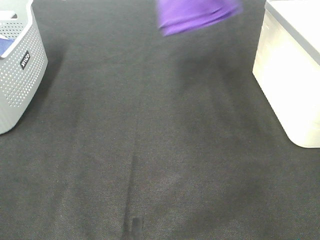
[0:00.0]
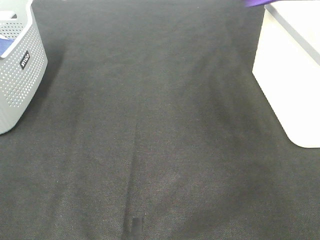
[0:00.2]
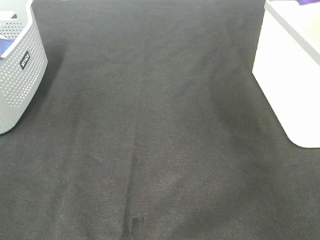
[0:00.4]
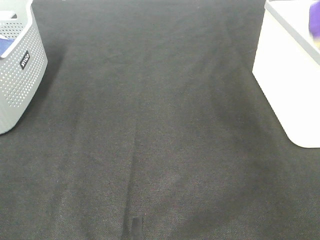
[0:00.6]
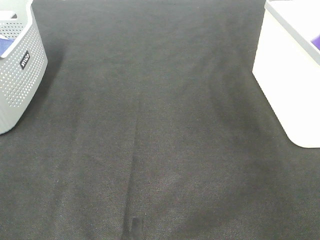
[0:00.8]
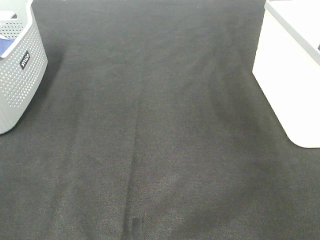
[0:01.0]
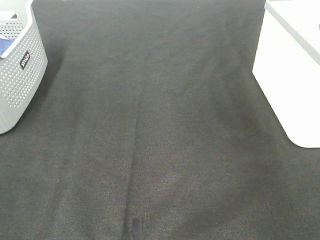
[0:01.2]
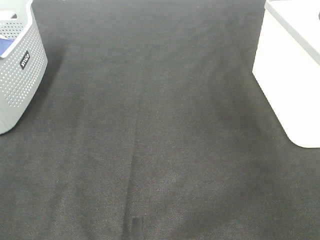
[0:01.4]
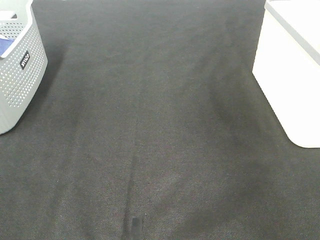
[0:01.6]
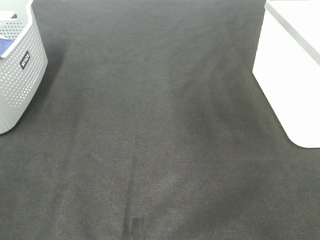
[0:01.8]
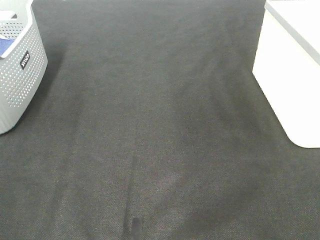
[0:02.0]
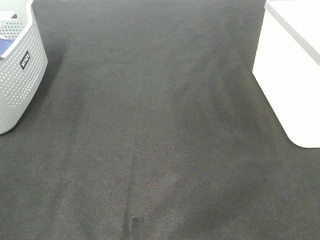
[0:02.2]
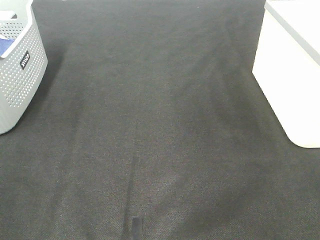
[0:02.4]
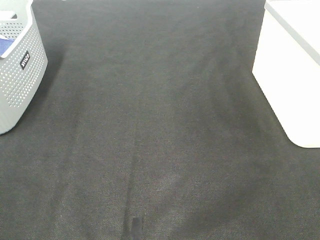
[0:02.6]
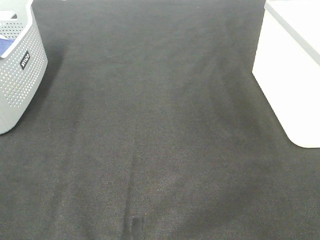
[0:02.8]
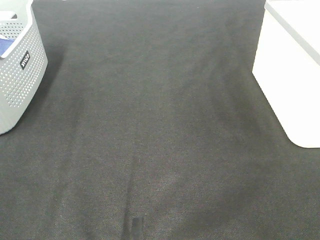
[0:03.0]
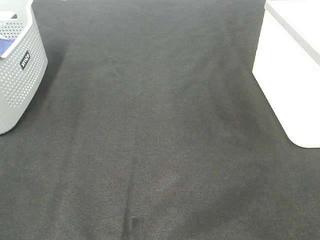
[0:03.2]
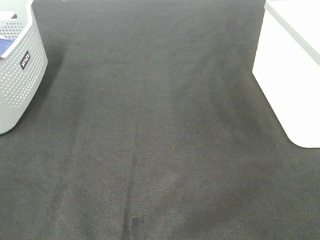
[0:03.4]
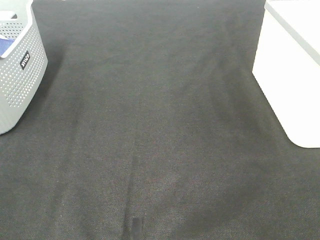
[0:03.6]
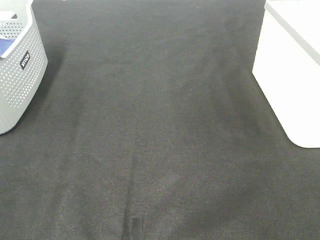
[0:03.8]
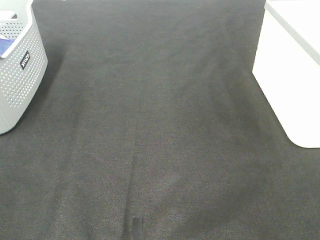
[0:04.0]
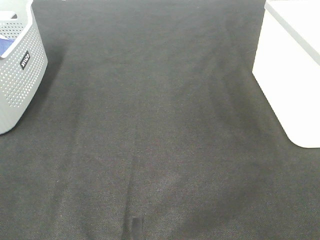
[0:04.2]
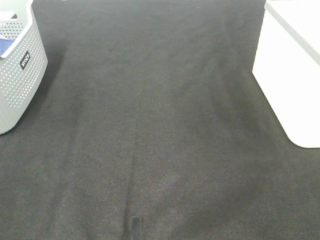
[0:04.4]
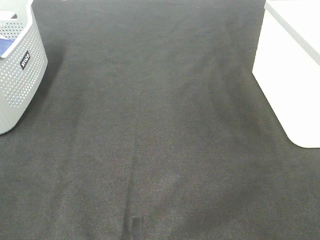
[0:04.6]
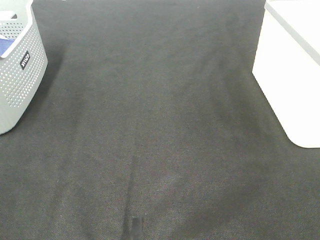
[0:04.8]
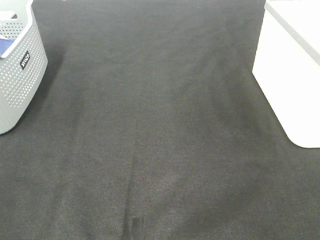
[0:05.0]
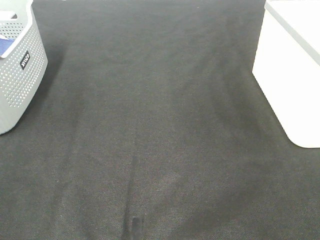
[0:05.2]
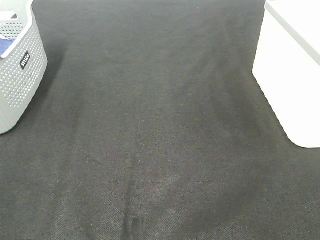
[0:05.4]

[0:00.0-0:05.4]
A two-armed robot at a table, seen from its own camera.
Step, 0:00.0 to 0:01.0: Right hand: place the purple towel in right basket.
0:00.0 to 0:01.4: The right gripper moves to the right, about 20 cm, and opens its fingers.
0:04.0 to 0:05.4: The two grippers keep their place.

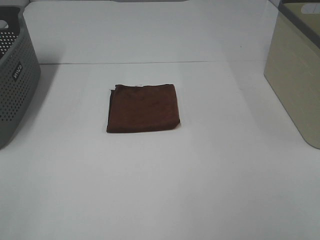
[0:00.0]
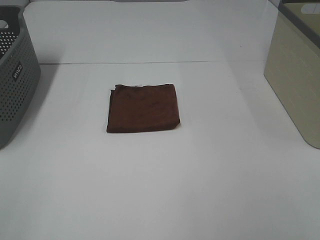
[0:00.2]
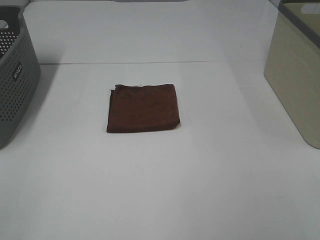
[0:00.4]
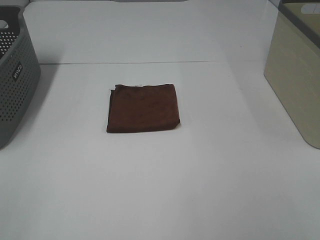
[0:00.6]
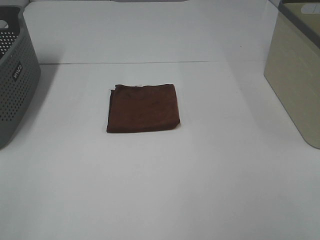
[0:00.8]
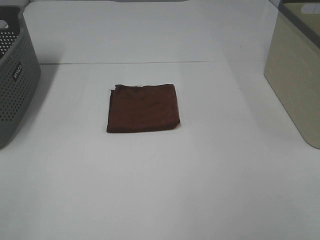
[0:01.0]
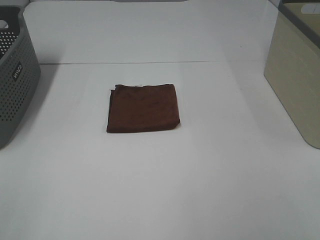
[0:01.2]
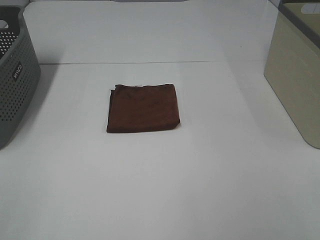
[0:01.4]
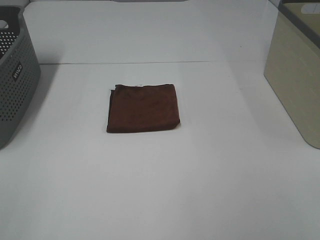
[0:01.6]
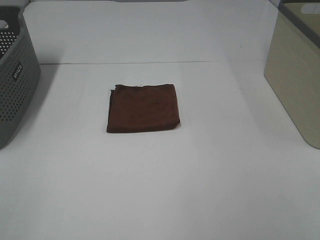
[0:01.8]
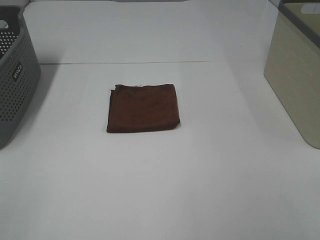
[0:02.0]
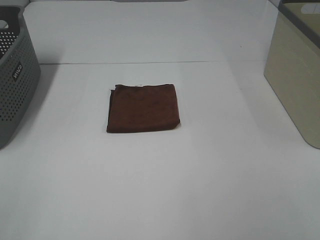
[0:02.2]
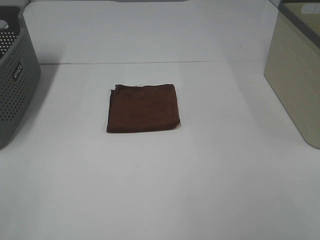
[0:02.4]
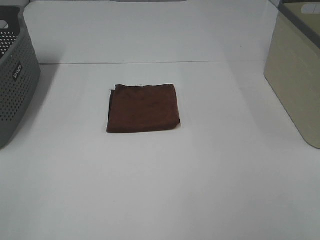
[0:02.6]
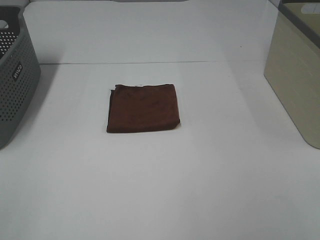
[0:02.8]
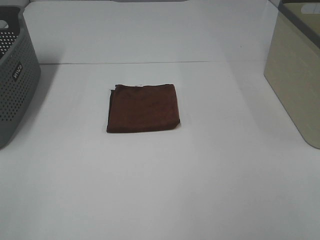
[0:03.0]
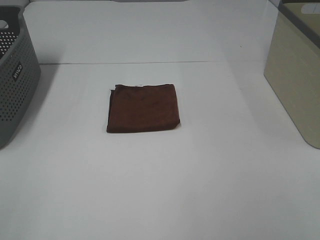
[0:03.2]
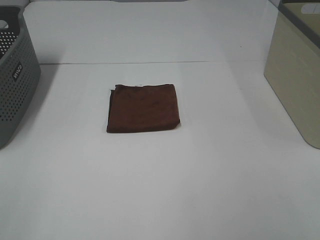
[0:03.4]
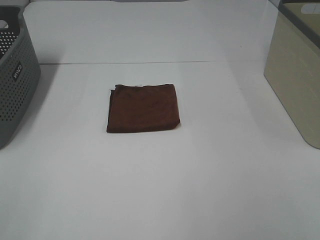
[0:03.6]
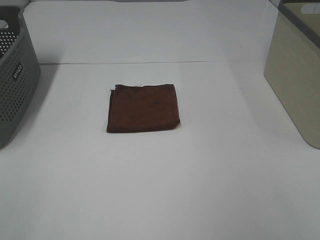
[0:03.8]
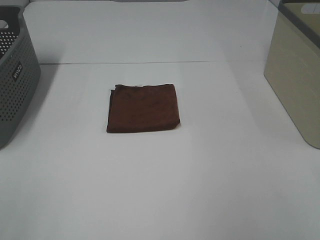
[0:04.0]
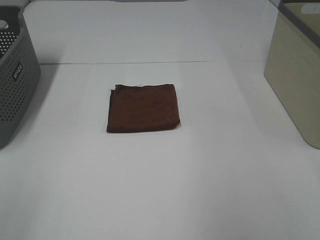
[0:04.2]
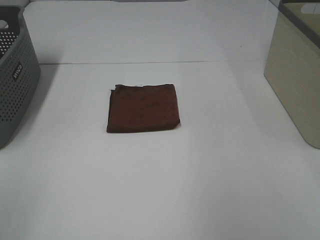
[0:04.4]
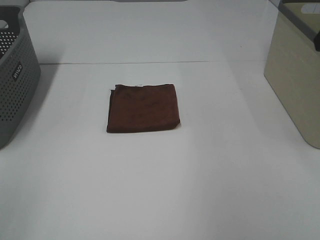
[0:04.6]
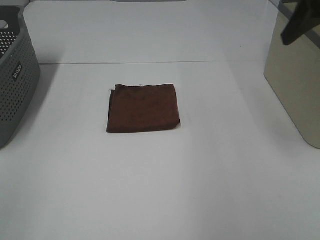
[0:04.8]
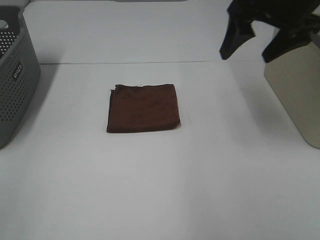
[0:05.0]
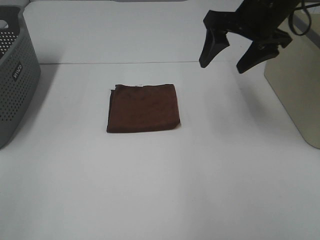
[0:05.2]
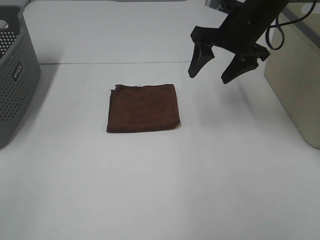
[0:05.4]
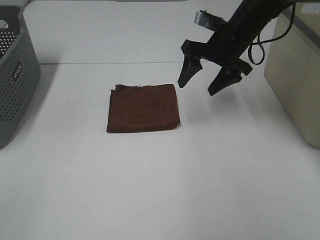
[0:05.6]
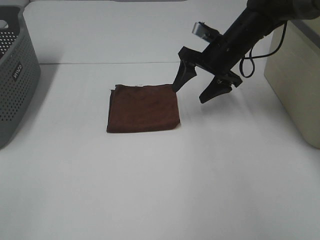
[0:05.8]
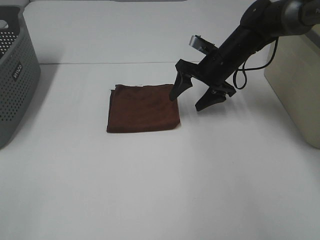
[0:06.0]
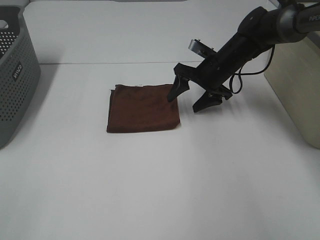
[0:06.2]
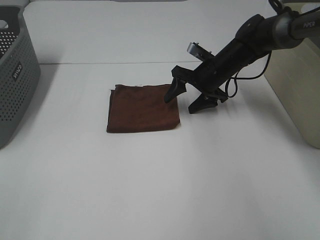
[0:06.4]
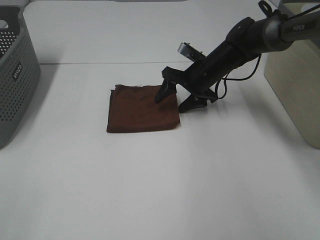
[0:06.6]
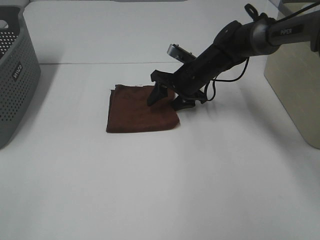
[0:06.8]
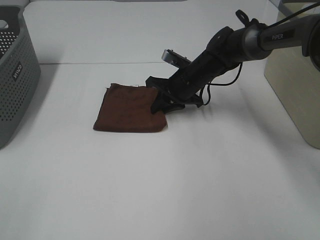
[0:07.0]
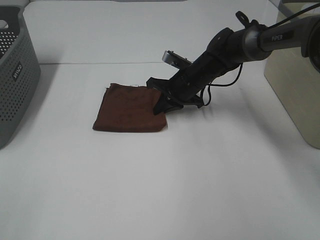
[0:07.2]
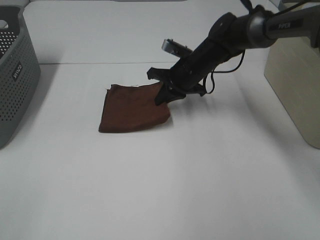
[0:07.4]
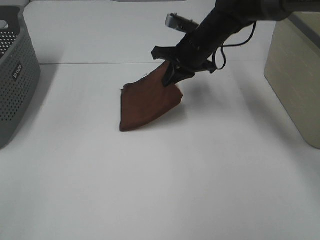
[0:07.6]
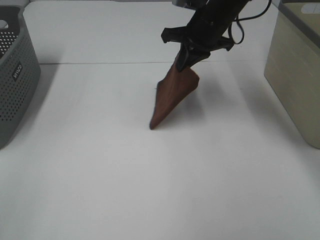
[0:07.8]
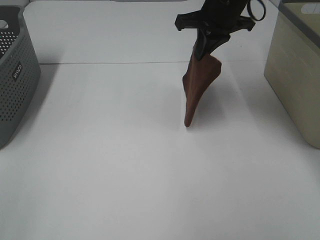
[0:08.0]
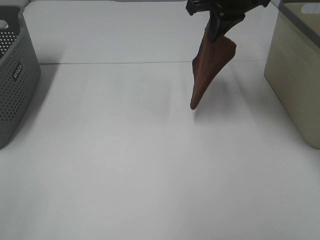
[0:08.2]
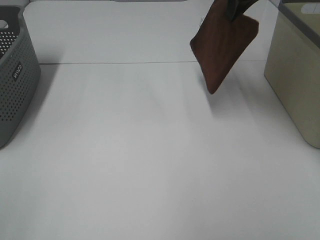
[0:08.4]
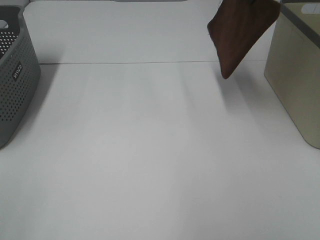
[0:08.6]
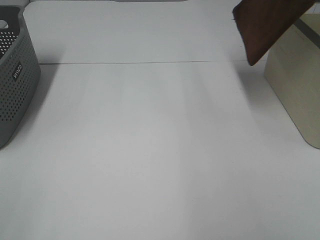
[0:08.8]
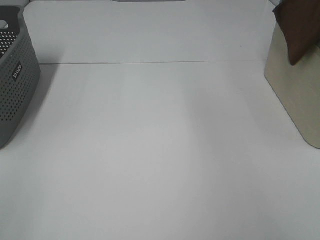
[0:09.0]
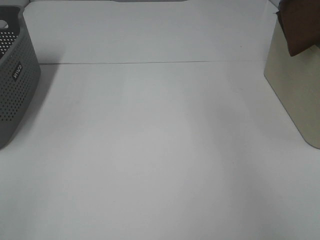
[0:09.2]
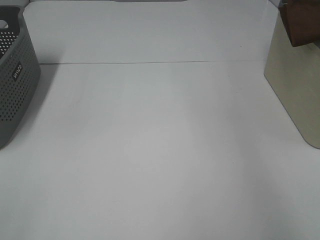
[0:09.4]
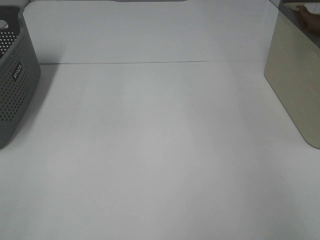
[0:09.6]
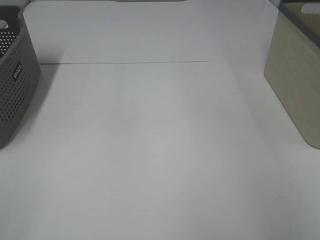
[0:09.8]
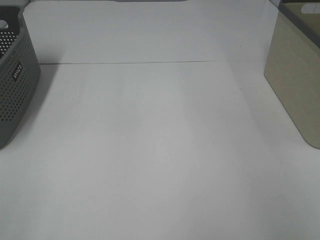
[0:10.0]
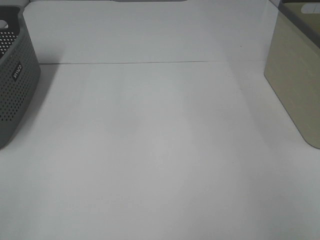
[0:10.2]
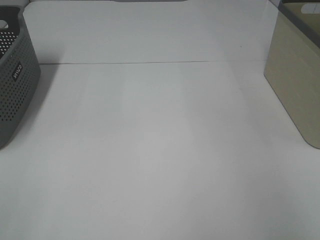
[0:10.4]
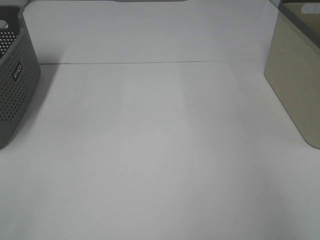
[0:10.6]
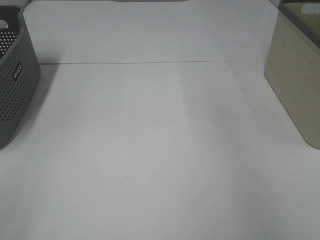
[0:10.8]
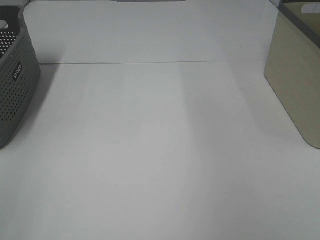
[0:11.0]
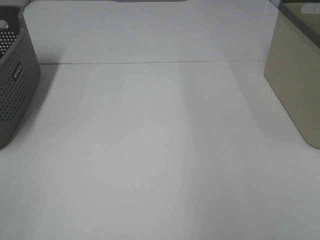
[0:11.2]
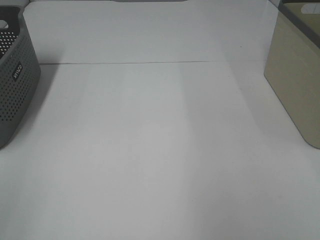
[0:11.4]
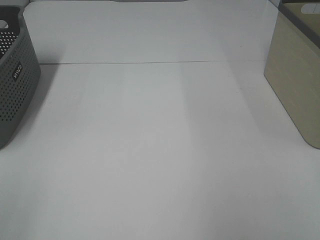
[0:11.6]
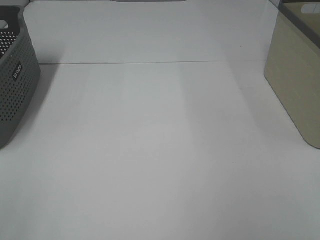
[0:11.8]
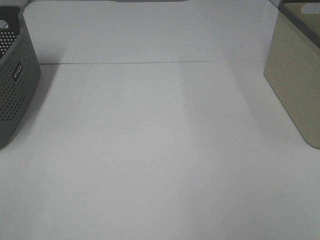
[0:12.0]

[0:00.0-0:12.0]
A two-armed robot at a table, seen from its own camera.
Step, 0:00.0 to 0:07.2: Right hand: grab the folded brown towel.
Step, 0:07.4 to 0:10.2: Right hand: place the brown towel in right basket.
0:00.0 to 0:03.0: Both grippers stay put.
0:04.4 to 0:06.0: The right gripper moves downward, forward and to the left, about 35 cm.
0:06.0 to 0:07.6: The right gripper travels upward by approximately 5 cm, and closes.
0:07.6 to 0:09.0: The right gripper goes approximately 30 cm to the right and upward.
0:09.0 to 0:10.4: The right gripper is displaced to the right by about 10 cm, and opens its fingers.

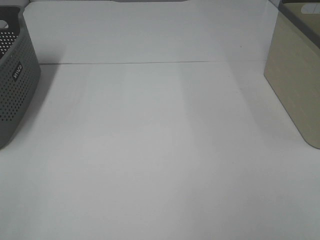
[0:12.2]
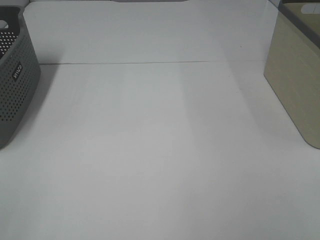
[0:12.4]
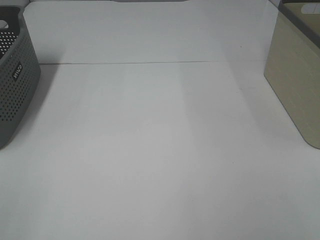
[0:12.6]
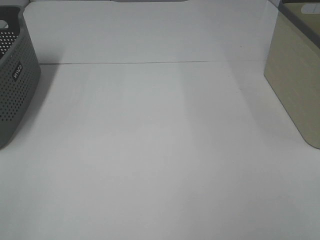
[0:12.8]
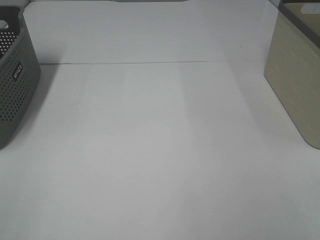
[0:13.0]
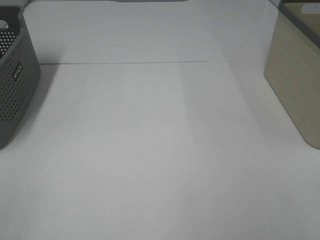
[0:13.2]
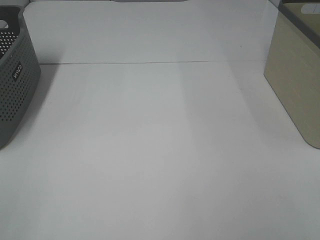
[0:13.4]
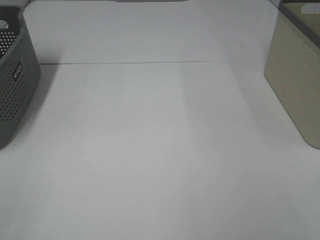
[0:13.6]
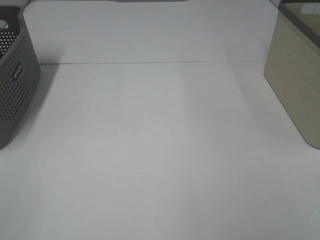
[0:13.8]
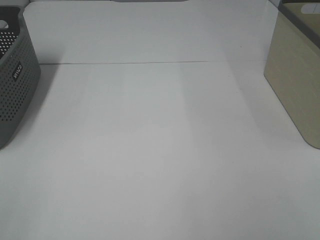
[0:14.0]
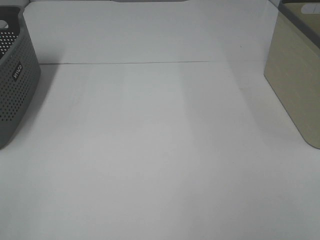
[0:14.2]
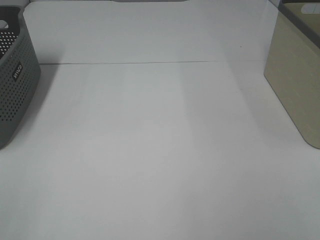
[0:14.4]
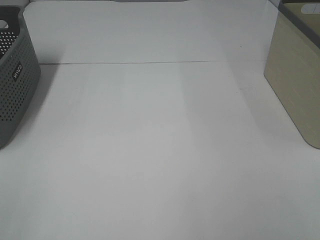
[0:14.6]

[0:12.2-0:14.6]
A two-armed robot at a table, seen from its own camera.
0:13.4 to 0:14.6: Both grippers stay about where they are.
